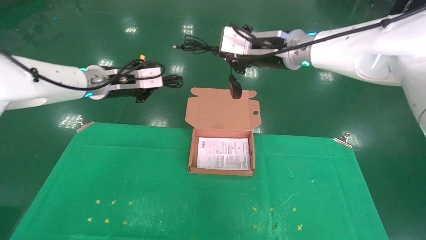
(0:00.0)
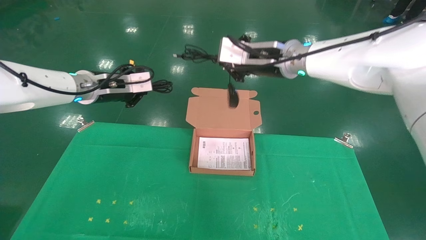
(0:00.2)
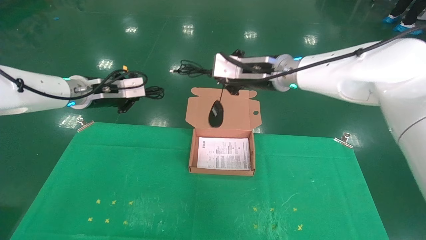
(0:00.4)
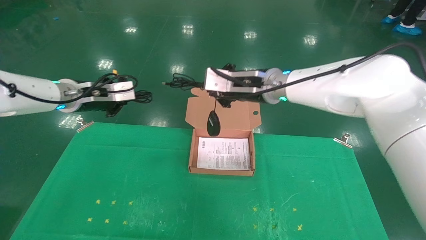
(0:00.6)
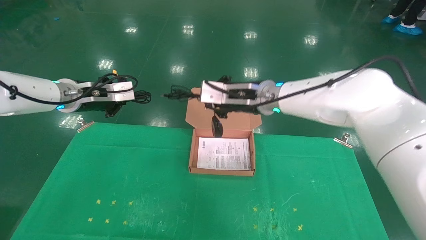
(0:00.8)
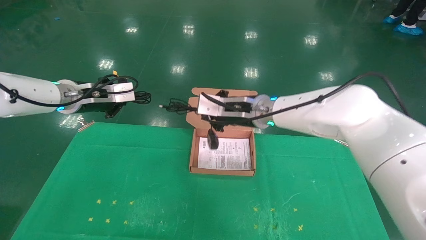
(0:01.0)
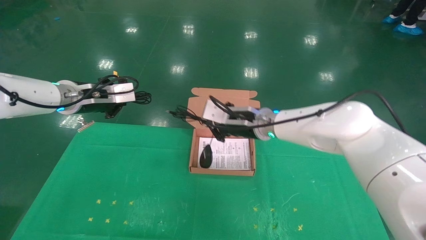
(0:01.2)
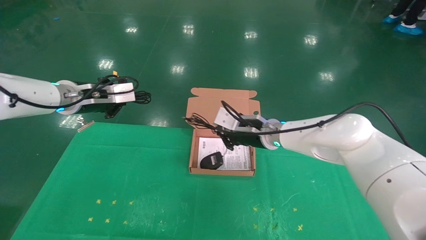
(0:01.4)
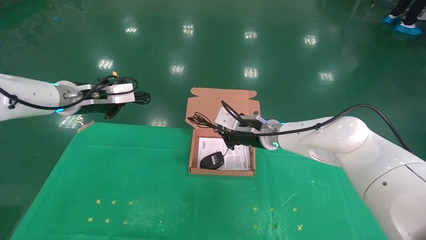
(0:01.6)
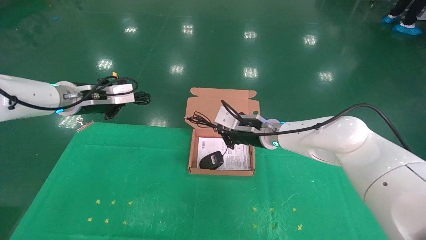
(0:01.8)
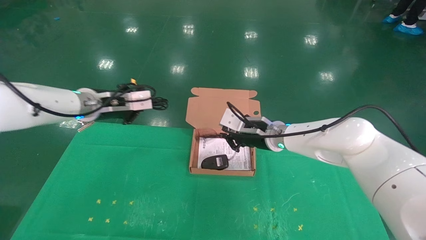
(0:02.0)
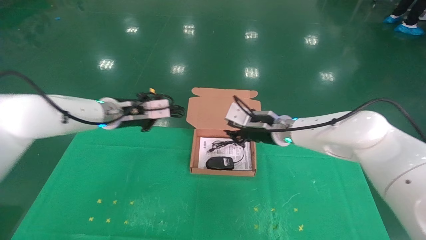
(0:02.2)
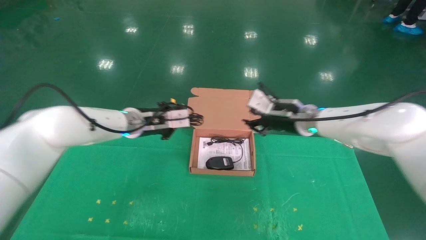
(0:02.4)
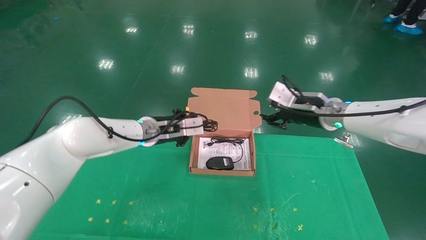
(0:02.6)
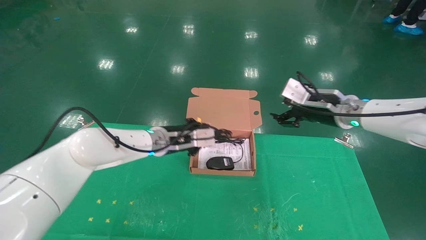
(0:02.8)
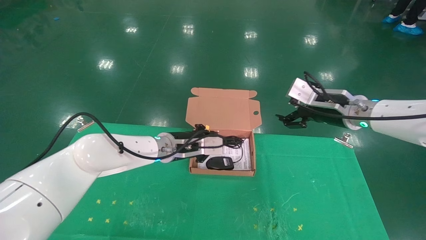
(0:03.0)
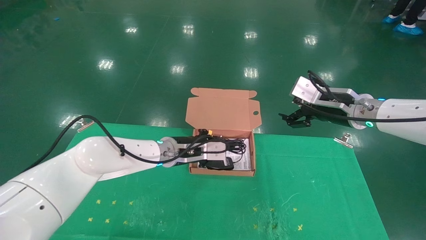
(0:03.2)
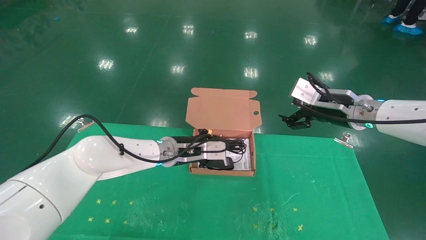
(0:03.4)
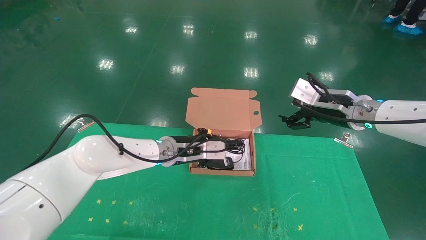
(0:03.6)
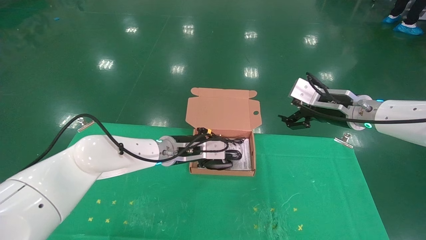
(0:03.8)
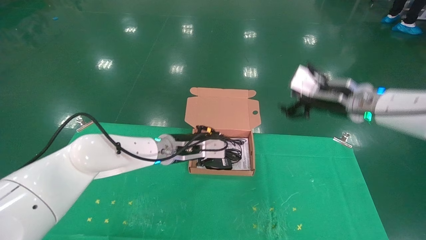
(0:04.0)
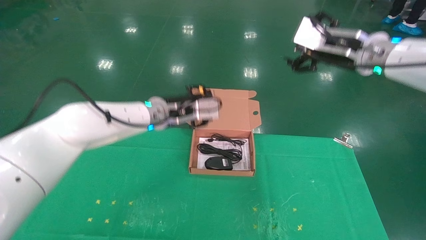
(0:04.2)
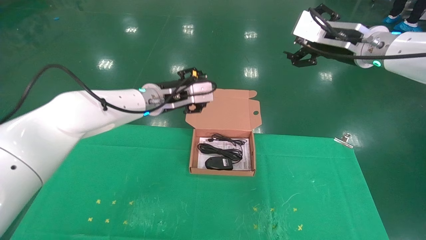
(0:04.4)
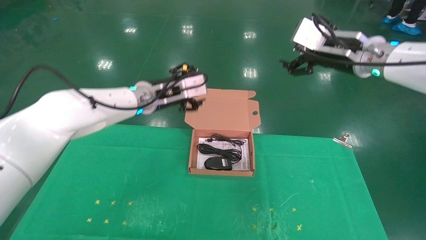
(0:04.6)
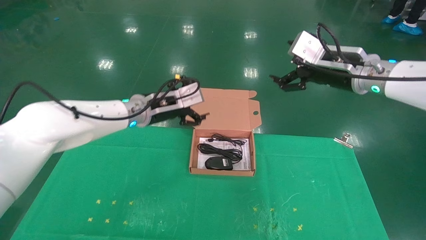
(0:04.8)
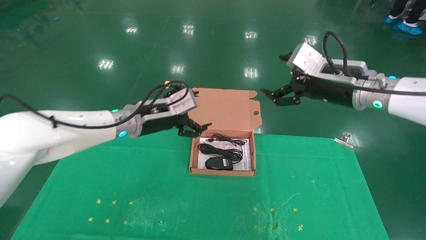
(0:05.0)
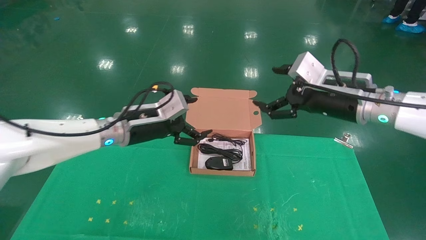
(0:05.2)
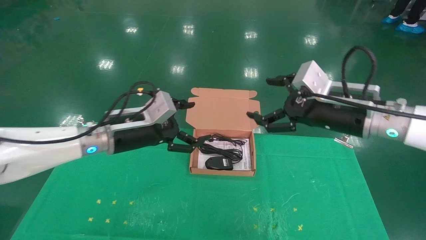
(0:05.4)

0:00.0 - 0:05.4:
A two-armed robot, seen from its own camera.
Task of the whole recording: grasp data cable left put into box grasp mouse right put into box.
Step, 0:00.0 - 0:03.8: Place the mouse and power cord into the box.
0:00.0 - 0:01.4: The left gripper goes approximately 5 cm to the left. The right gripper is displaced downward by approximately 20 cm.
0:01.4 - 0:02.8: The right gripper goes roughly 15 cm to the right, and opens up. Meanwhile the left gripper goes approximately 20 cm to the right and downward.
0:02.8 - 0:04.0: The right gripper shifts approximately 5 cm upward, and opens its fingers.
0:04.0 - 0:05.4: The right gripper goes about 5 cm backward. The left gripper is displaced to the left and backward by approximately 10 cm, and opens.

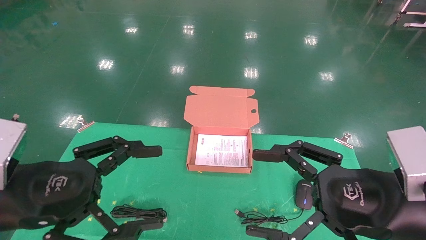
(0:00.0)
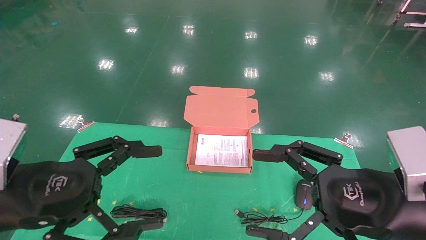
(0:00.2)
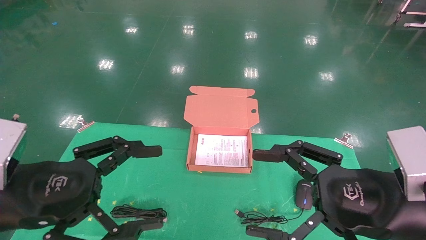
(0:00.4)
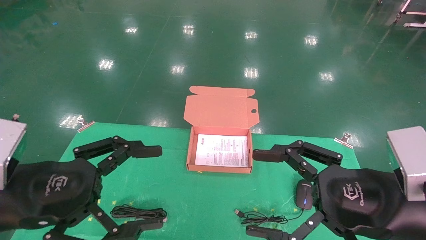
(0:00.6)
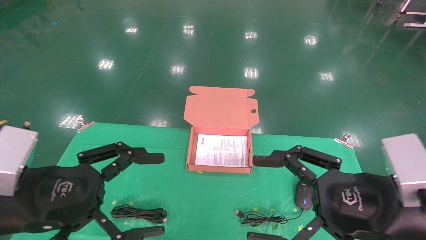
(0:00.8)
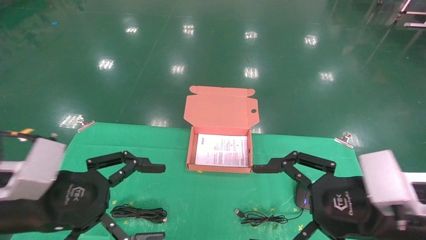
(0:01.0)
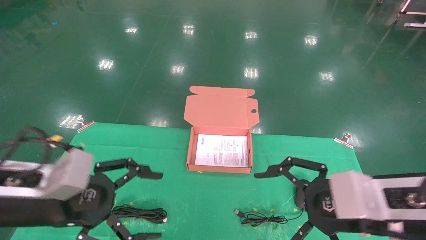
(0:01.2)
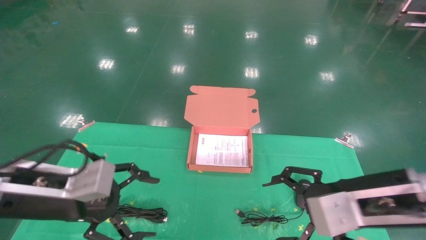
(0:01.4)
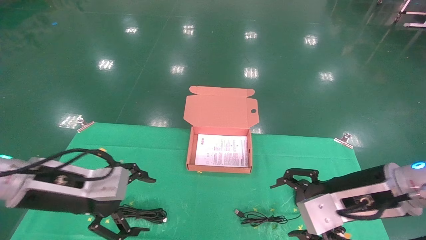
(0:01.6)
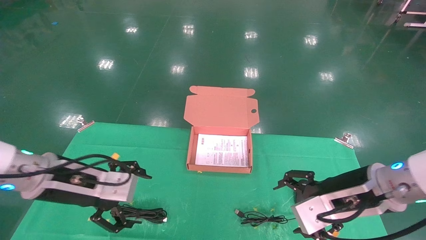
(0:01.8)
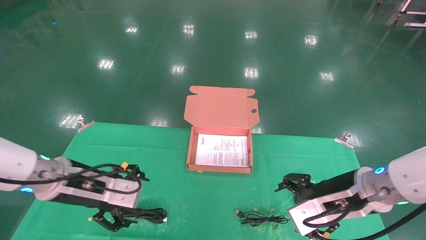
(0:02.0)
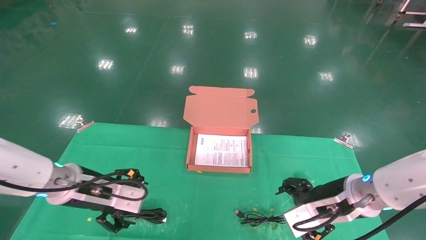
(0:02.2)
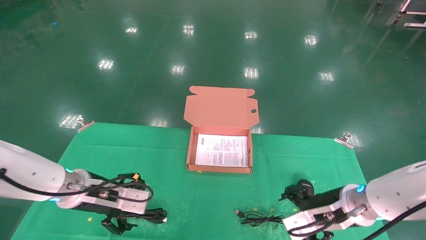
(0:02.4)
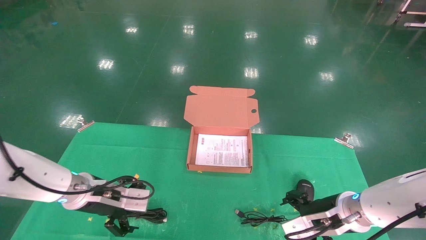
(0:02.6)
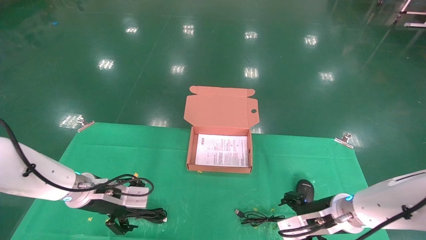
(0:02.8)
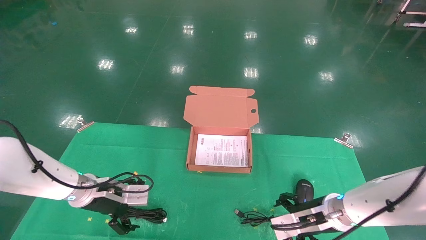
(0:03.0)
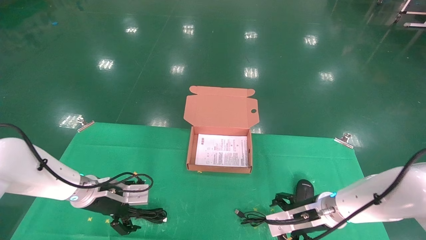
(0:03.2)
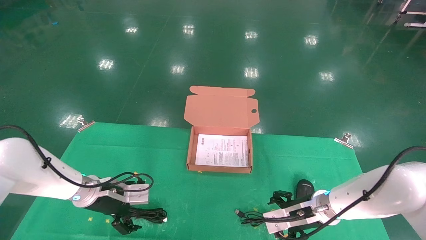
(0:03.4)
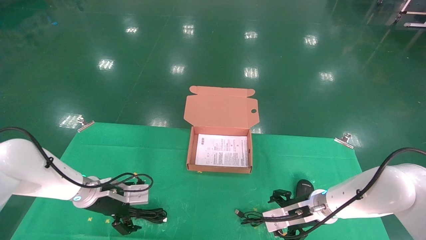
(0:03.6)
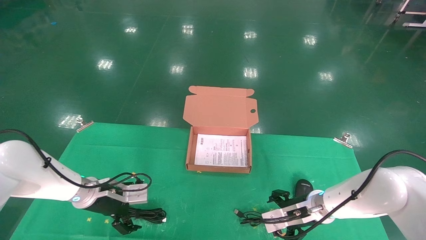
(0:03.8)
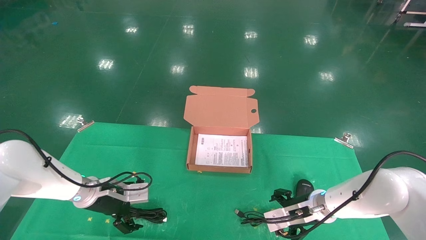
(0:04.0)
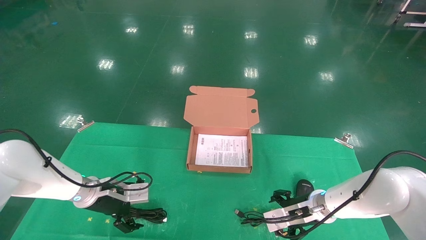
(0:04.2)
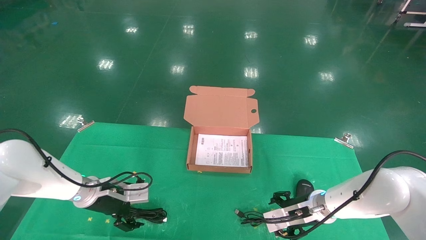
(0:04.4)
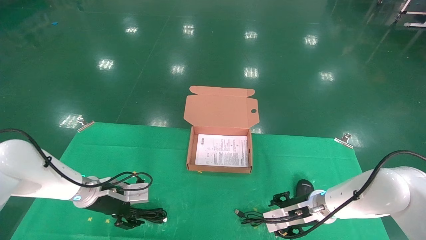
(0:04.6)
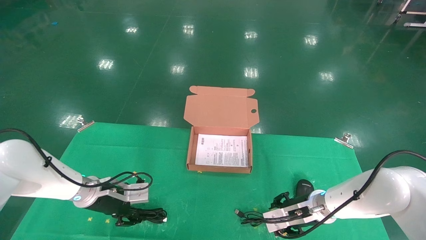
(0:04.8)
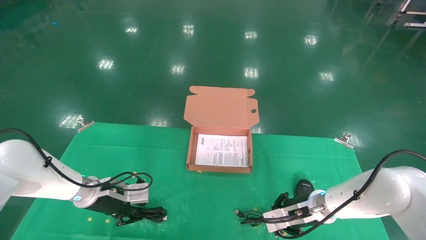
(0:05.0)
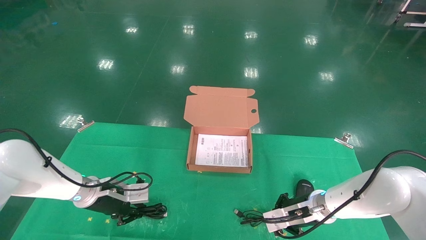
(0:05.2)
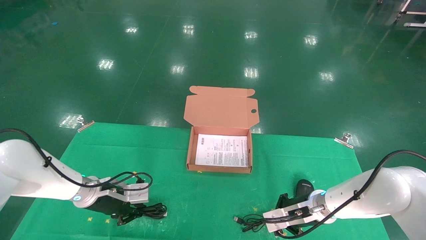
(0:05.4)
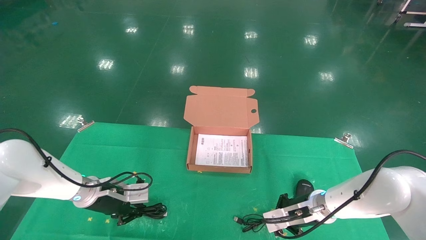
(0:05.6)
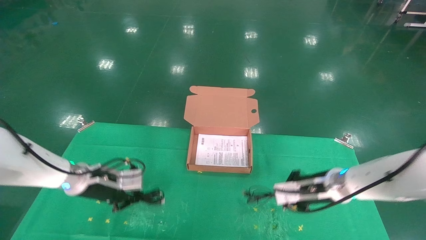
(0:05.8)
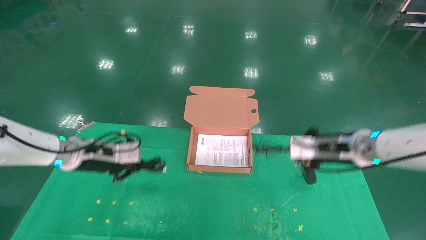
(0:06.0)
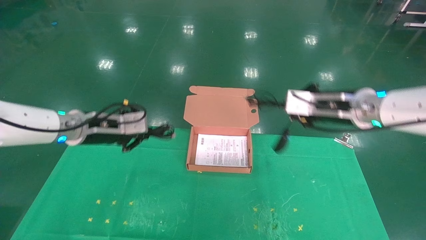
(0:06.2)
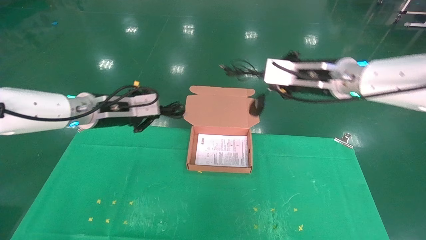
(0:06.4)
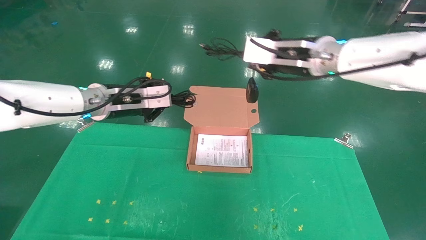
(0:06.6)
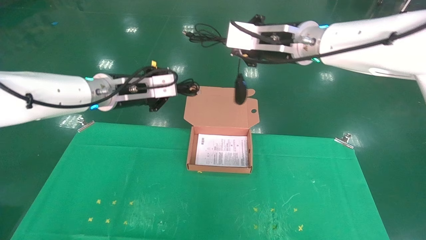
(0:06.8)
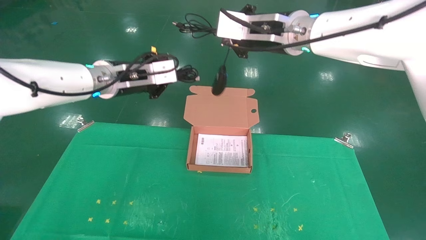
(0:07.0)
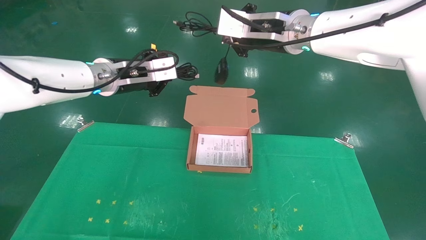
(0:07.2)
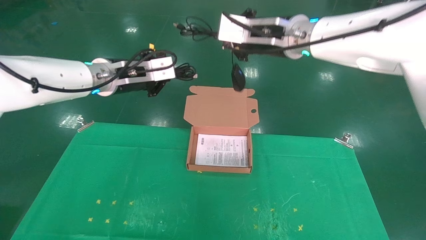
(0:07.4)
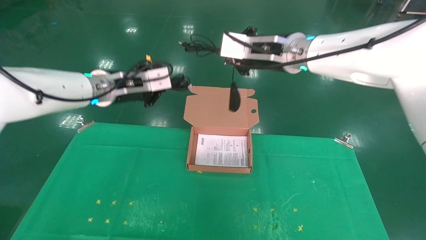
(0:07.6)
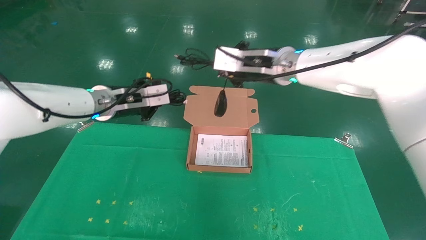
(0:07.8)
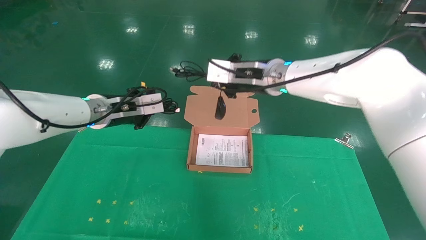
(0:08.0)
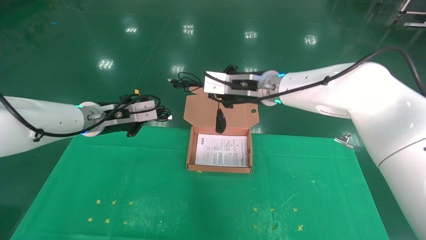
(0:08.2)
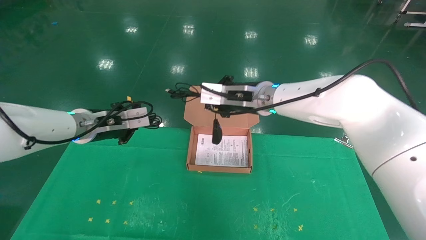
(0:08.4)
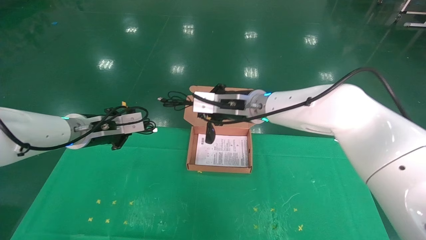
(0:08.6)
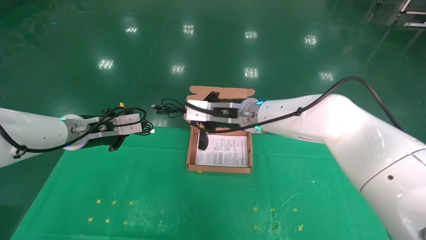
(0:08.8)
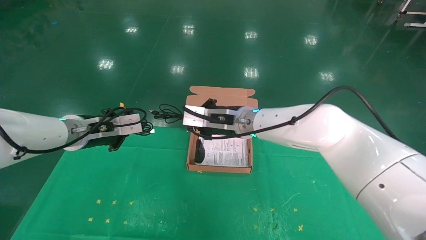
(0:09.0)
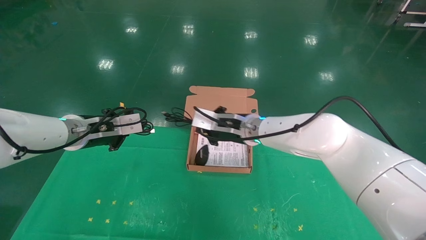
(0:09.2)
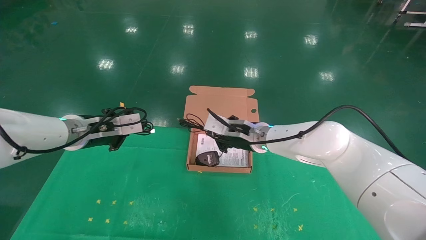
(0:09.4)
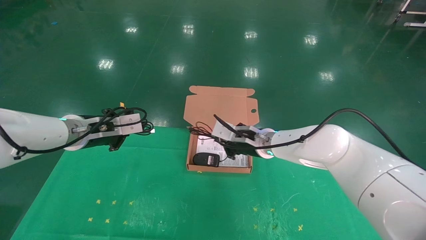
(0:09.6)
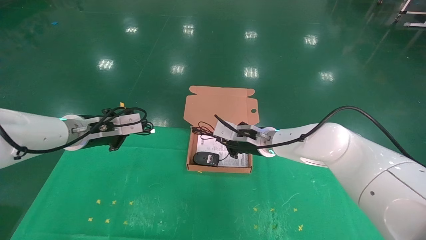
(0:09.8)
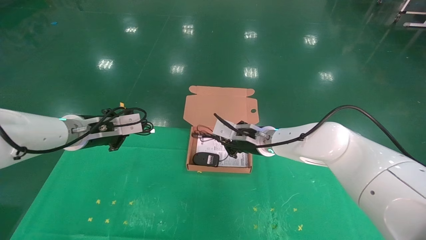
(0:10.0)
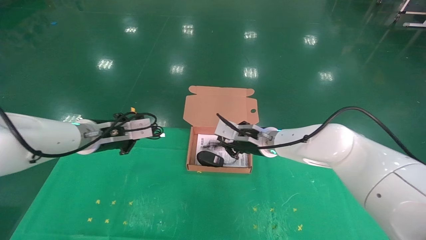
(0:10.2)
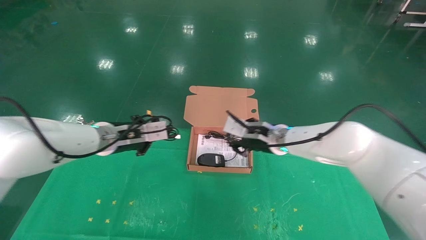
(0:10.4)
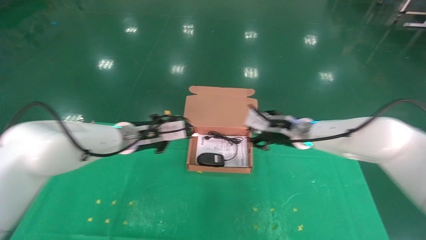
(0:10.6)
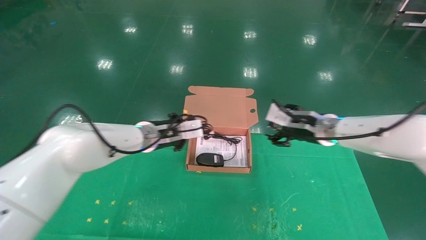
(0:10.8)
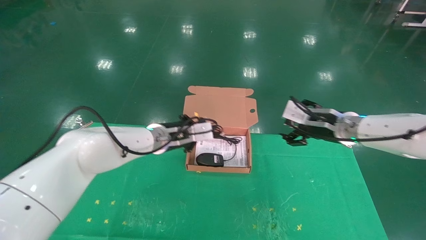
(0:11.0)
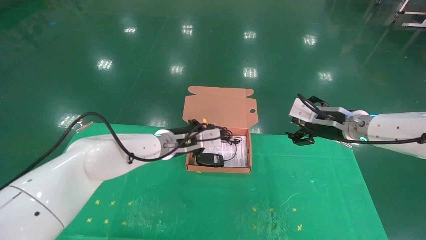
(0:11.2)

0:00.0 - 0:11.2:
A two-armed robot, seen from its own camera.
Task of the whole recording: grasp data cable left put into box grasp mouse right put into box.
Step, 0:01.4 - 0:05.2: Grab and pick up both the mouse and power cord from the accessory packaging area at the same time.
0:00.0 - 0:01.6: Both grippers travel together forward, some 10 cm.
0:01.6 - 0:03.2: The right gripper travels downward and forward by some 15 cm, while the left gripper moves forward and downward, roughly 20 cm.
0:03.2 - 0:04.8: The left gripper closes its fingers; the right gripper closes its fingers.
0:04.8 - 0:06.4: The two grippers go about 25 cm upward. The right gripper closes its fingers.
0:06.4 - 0:08.0: The right gripper shifts some 10 cm to the left.
0:08.0 - 0:09.6: The right gripper goes approximately 15 cm downward, while the left gripper ends up approximately 5 cm from where it was.
0:09.6 - 0:11.2: The two grippers go roughly 20 cm to the right. The right gripper opens.
